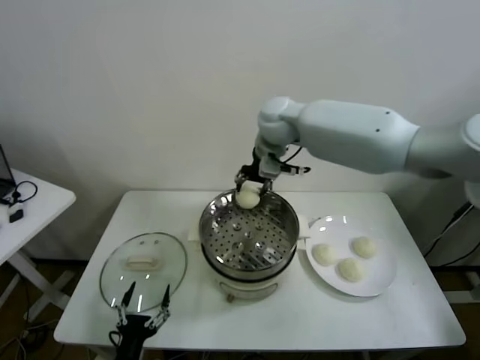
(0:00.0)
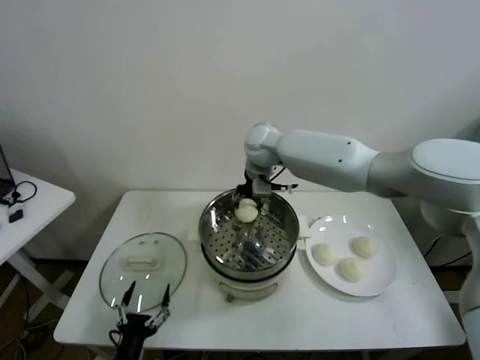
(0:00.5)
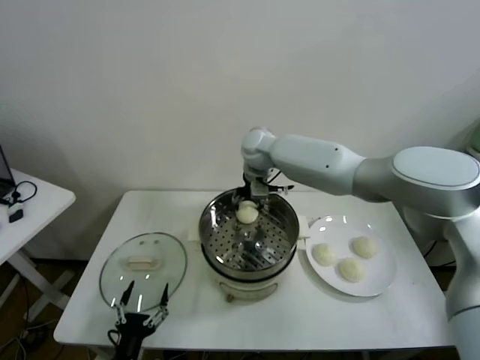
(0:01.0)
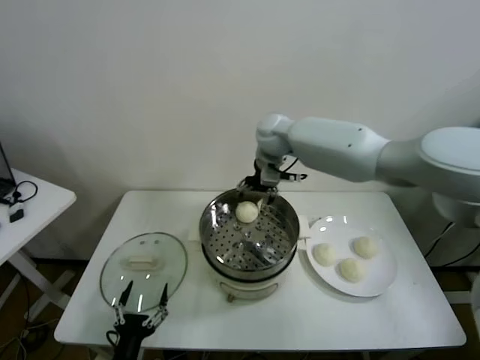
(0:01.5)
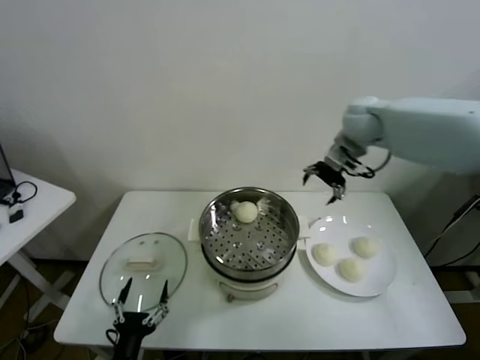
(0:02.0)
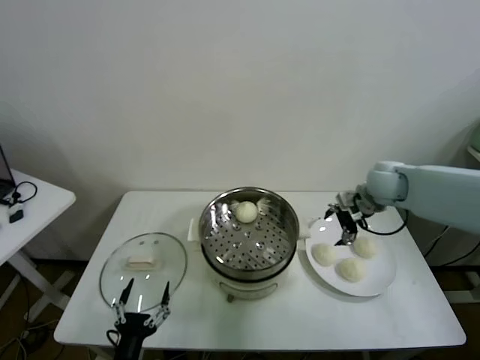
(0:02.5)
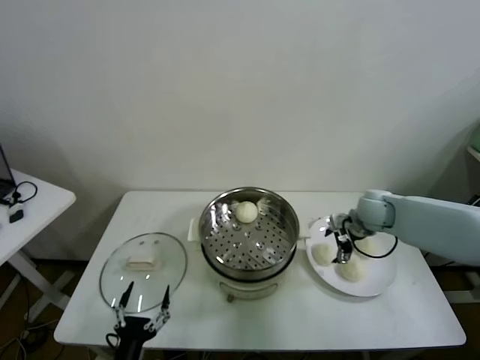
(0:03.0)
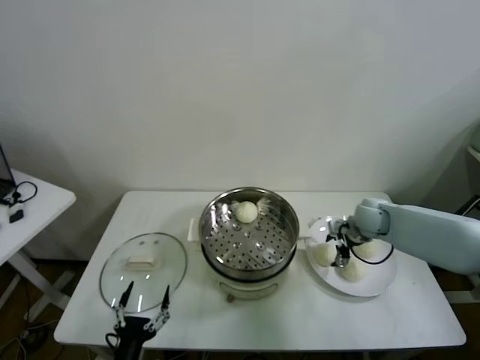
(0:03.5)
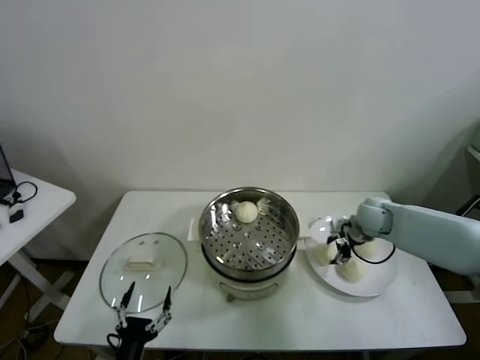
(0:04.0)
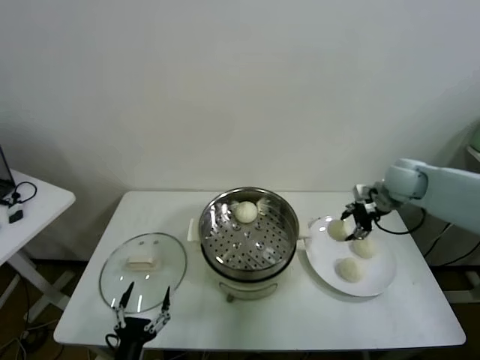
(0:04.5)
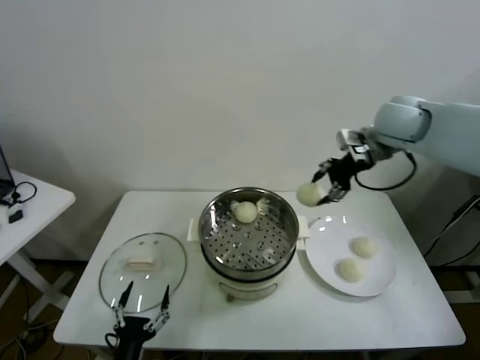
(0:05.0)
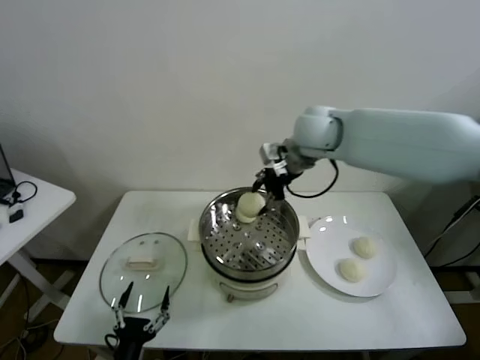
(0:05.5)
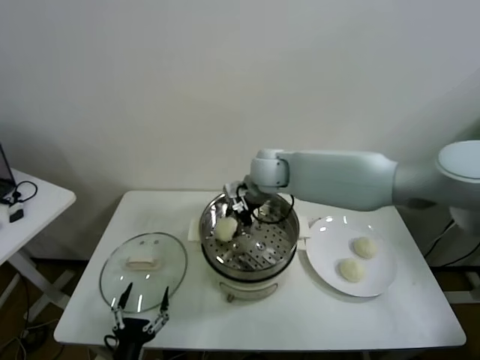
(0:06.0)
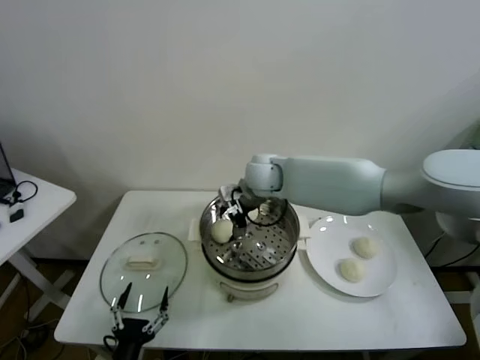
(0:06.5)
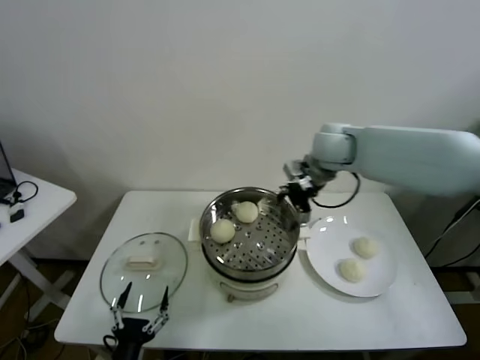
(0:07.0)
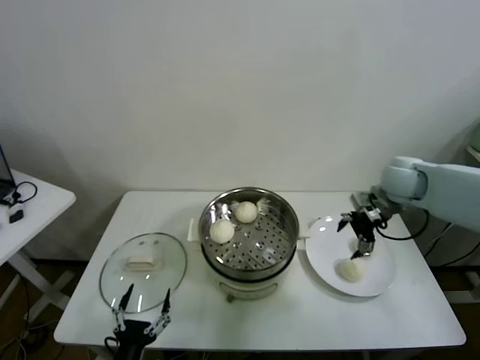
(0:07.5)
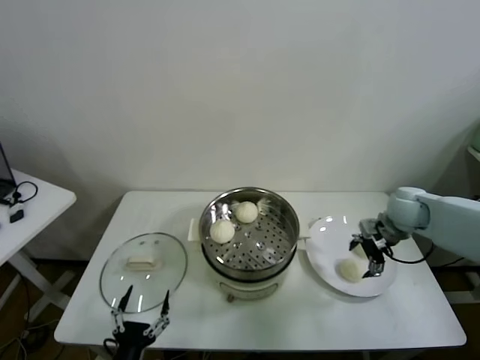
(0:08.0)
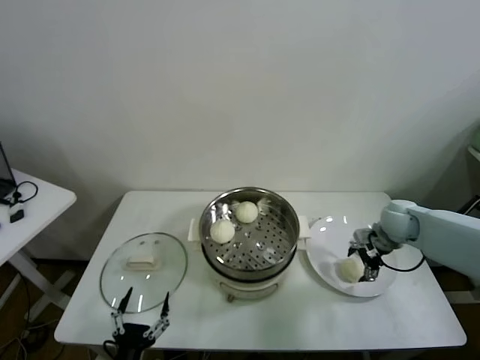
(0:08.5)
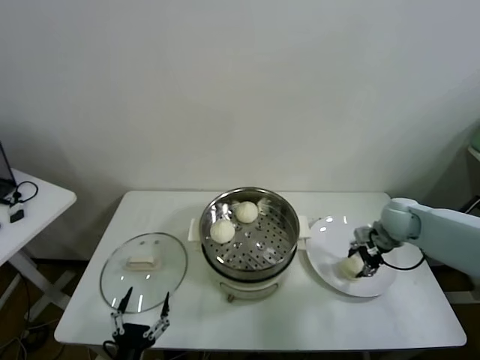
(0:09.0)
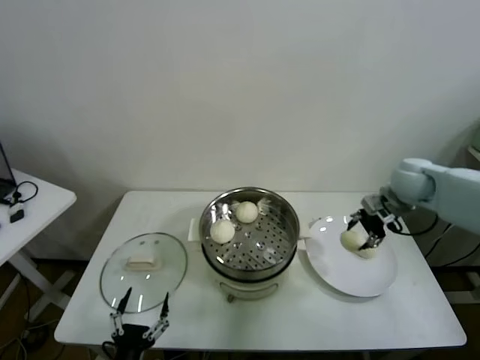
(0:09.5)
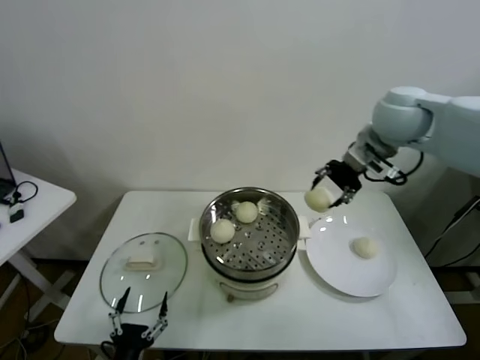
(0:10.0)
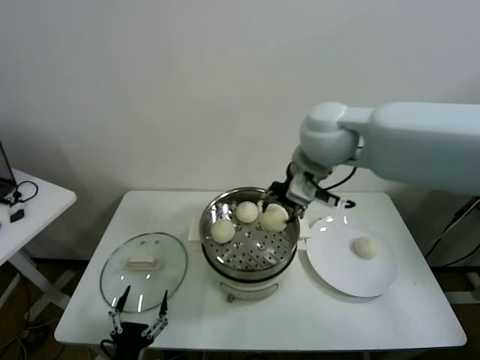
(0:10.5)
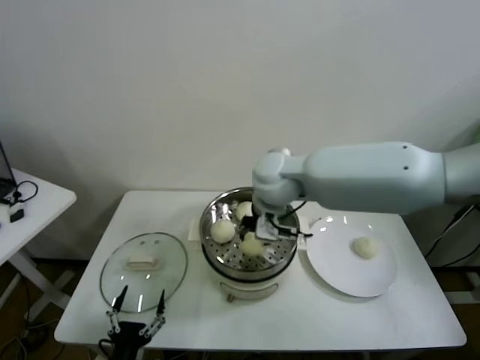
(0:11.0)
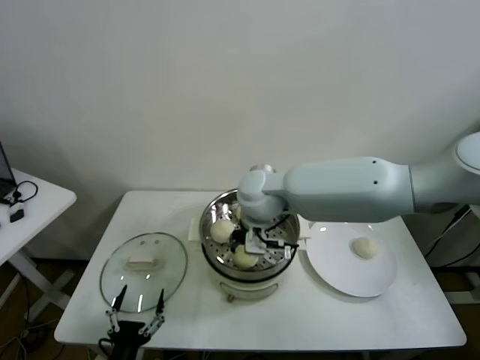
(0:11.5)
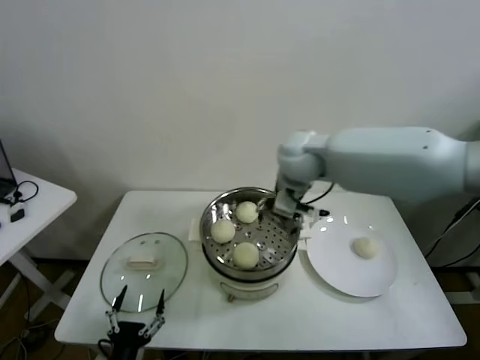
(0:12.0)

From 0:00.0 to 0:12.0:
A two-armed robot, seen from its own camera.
Task of the whole recording: take steamed baozi put them in steamer.
Step, from 0:01.5 to 0:03.5: Grasp the baozi in the plate with right gripper.
Step, from 0:04.0 to 0:06.0: Place the baozi on the steamer with right gripper.
Step, from 0:07.0 to 0:08.5: Grasp the baozi in the plate with right gripper.
Step, from 0:09.0 to 0:11.5: Place the baozi on the steamer with right gripper.
From 0:00.0 to 0:02.0: The right gripper goes roughly 20 cm to the right, and opens its fingers.
From 0:02.0 to 0:04.0: The right gripper is displaced downward by some 20 cm, and closes up.
From 0:04.0 to 0:06.0: The right gripper goes roughly 30 cm to the left and upward.
From 0:06.0 to 0:08.0: The right gripper shifts roughly 35 cm to the right, and opens.
From 0:08.0 to 0:10.0: The right gripper is displaced upward and to the left by about 25 cm, and closes its fingers.
From 0:10.0 to 0:12.0: The right gripper travels to the left and downward by approximately 20 cm, and opens.

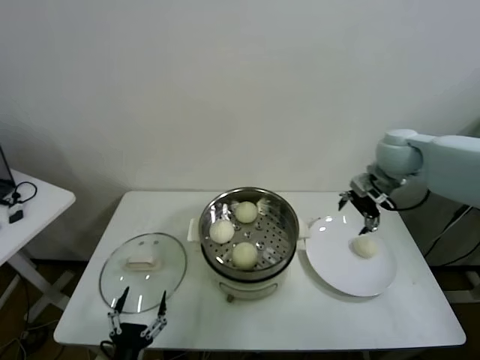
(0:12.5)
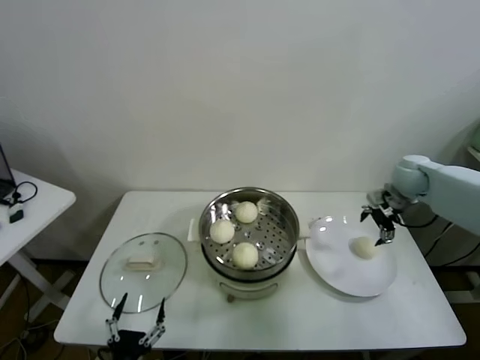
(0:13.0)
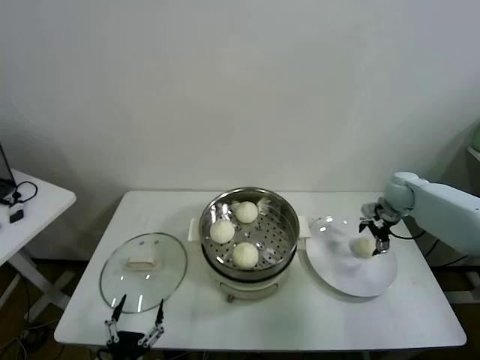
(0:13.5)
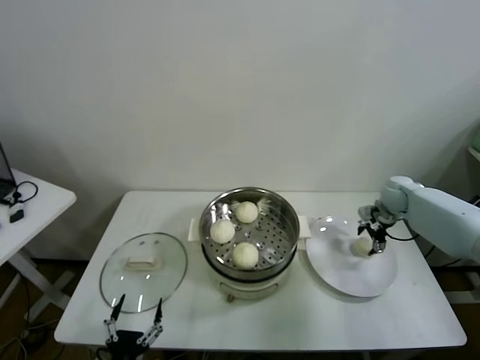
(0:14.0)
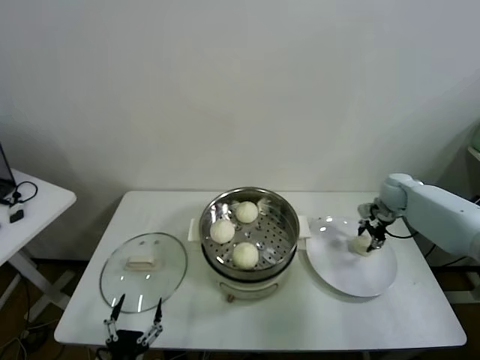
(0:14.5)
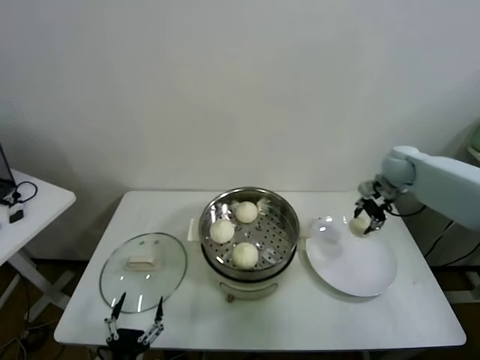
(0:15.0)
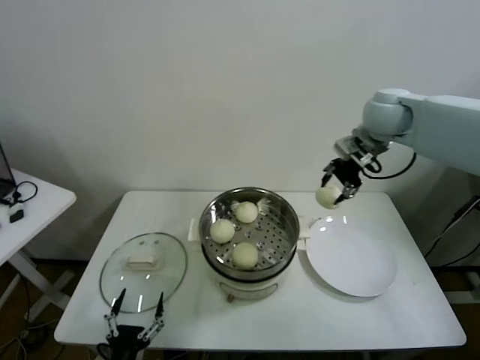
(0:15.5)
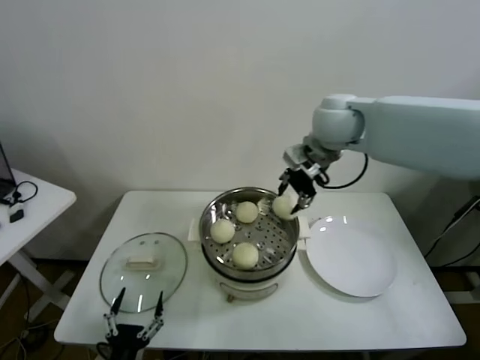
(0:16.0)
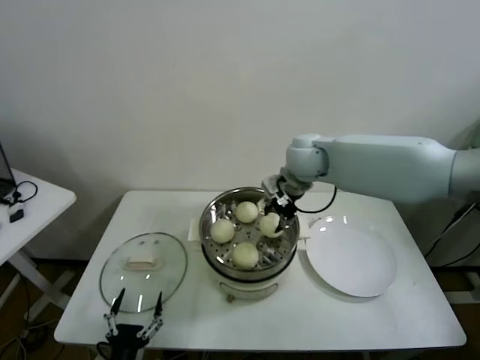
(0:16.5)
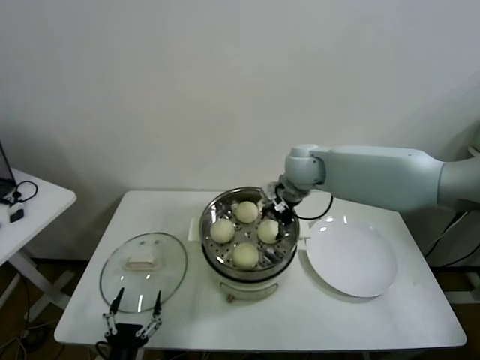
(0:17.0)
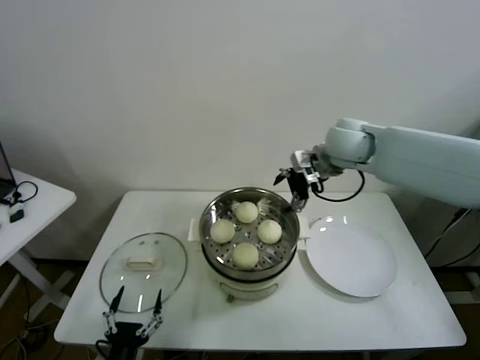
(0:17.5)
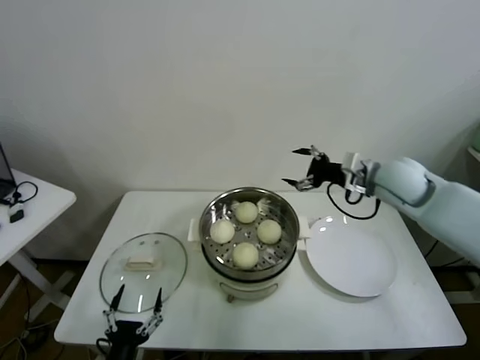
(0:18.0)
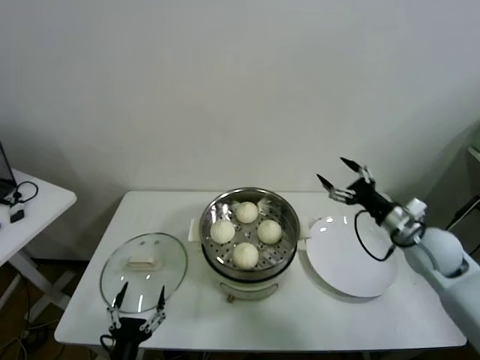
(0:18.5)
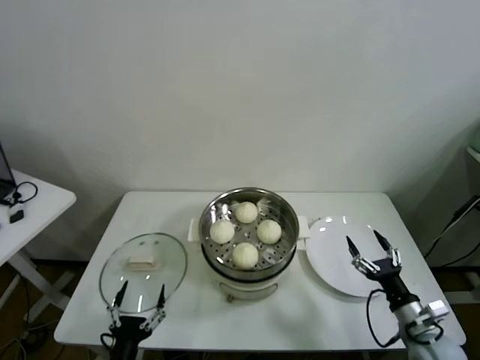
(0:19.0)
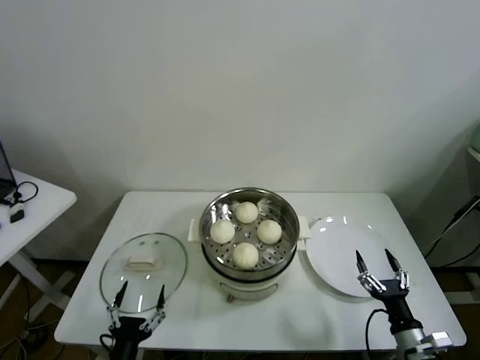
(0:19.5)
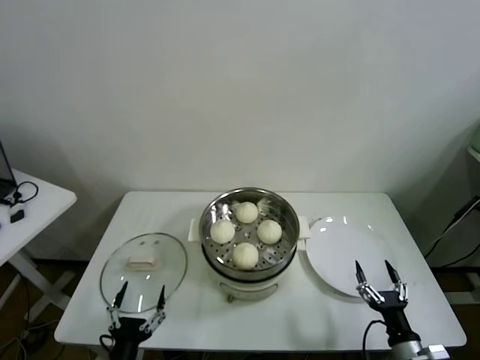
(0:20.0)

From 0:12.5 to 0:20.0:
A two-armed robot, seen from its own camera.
Task of the whole recording: take steamed baozi put them in steamer.
Step, from 0:12.5 to 0:14.0: Grasp the baozi in the plate with right gripper.
Step, from 0:14.5 to 0:17.0: Place the baozi on the steamer with right gripper.
From 0:12.5 to 0:14.5: The right gripper heads downward and to the right, covering roughly 20 cm, and closes its fingers.
From 0:14.5 to 0:16.5: The right gripper goes approximately 35 cm to the left and upward.
From 0:16.5 to 0:18.0: The right gripper heads to the right, covering some 15 cm, and opens its fingers.
From 0:18.0 to 0:20.0: The right gripper goes roughly 40 cm backward and downward.
